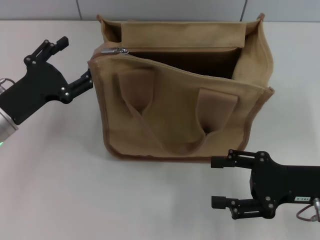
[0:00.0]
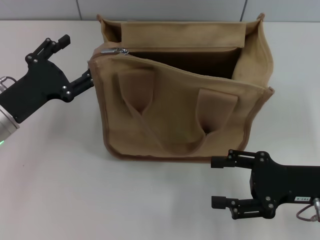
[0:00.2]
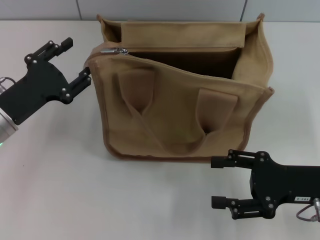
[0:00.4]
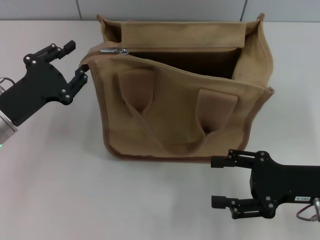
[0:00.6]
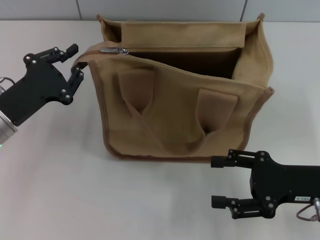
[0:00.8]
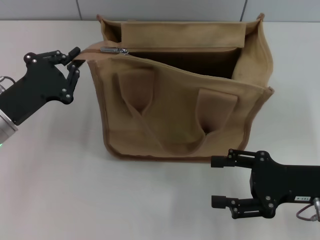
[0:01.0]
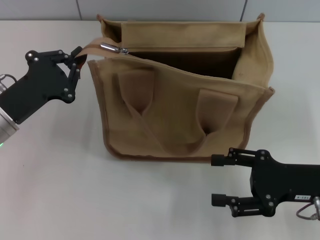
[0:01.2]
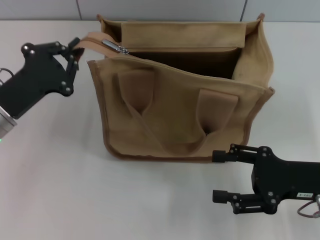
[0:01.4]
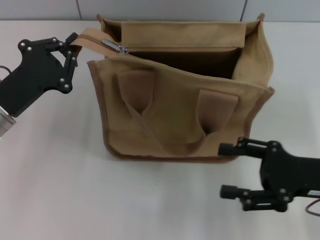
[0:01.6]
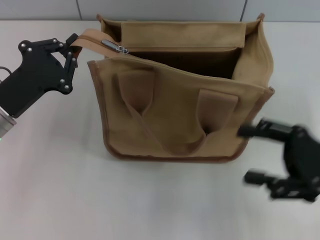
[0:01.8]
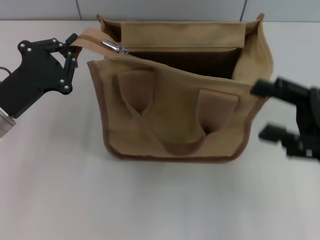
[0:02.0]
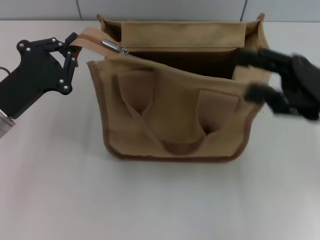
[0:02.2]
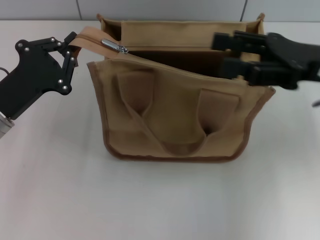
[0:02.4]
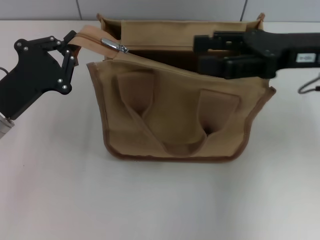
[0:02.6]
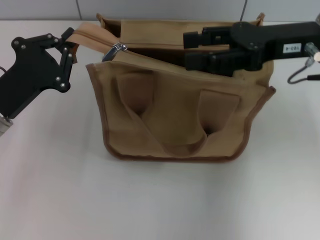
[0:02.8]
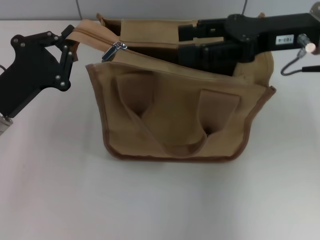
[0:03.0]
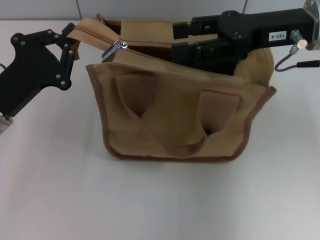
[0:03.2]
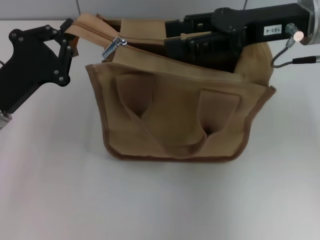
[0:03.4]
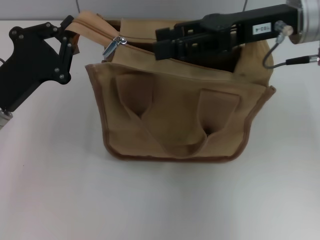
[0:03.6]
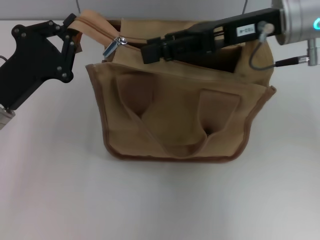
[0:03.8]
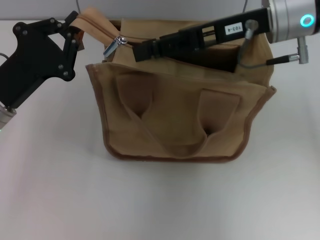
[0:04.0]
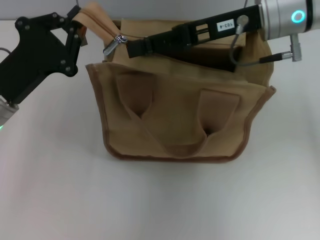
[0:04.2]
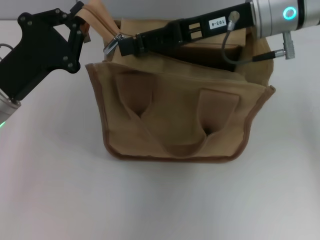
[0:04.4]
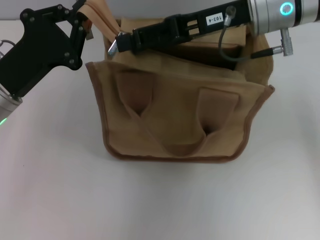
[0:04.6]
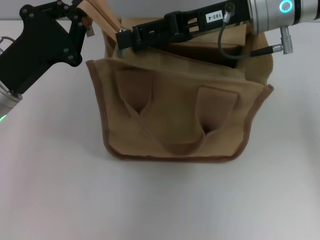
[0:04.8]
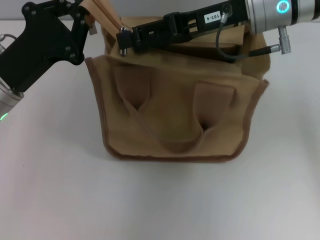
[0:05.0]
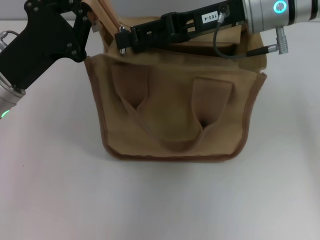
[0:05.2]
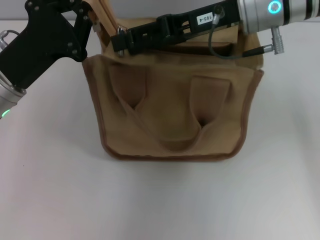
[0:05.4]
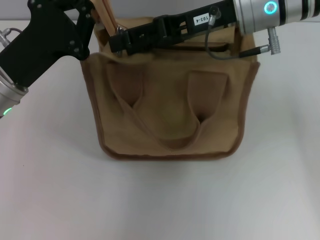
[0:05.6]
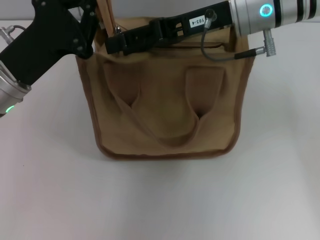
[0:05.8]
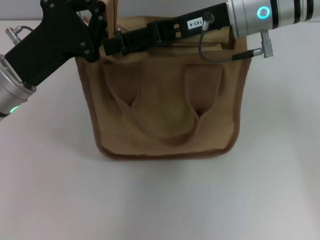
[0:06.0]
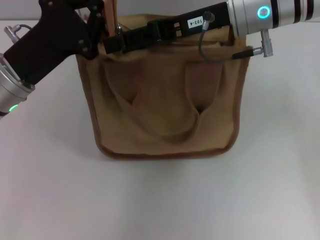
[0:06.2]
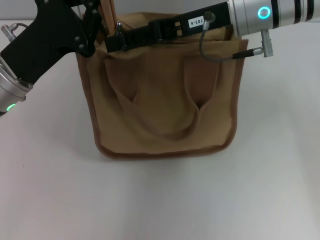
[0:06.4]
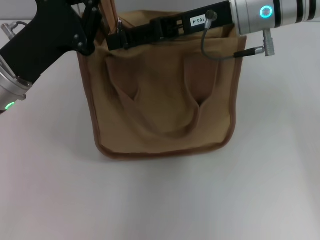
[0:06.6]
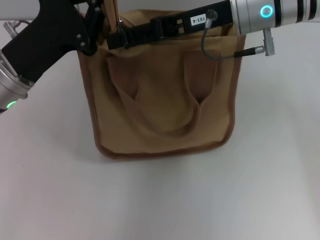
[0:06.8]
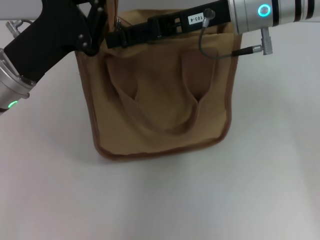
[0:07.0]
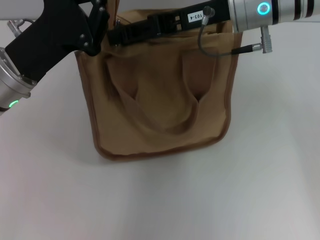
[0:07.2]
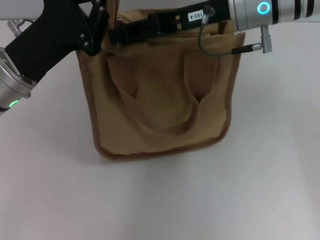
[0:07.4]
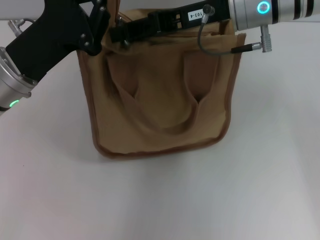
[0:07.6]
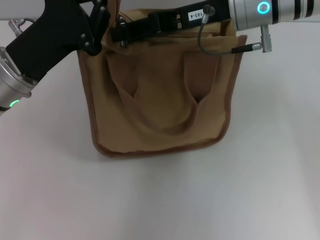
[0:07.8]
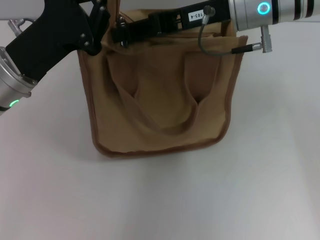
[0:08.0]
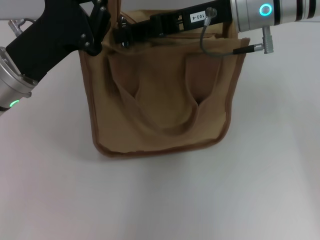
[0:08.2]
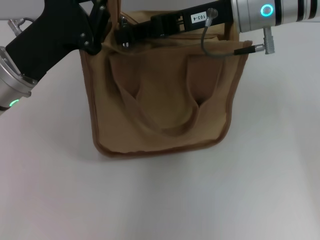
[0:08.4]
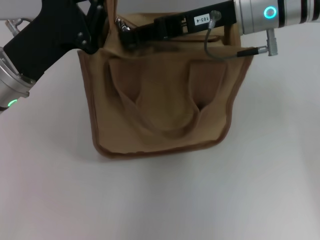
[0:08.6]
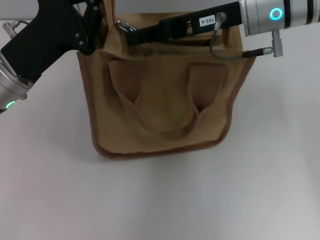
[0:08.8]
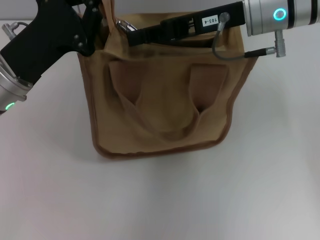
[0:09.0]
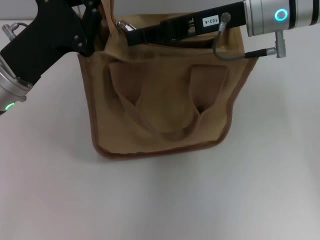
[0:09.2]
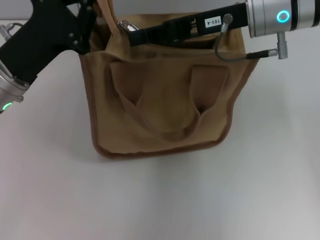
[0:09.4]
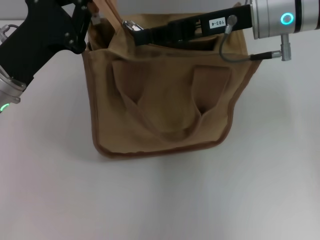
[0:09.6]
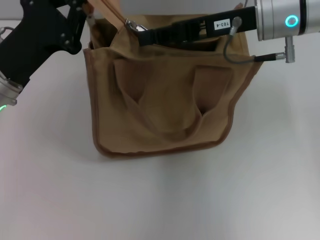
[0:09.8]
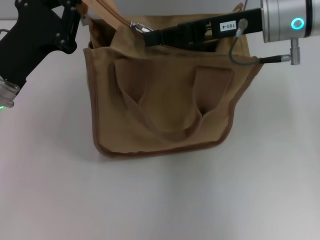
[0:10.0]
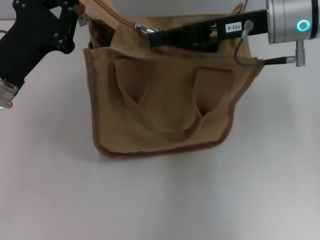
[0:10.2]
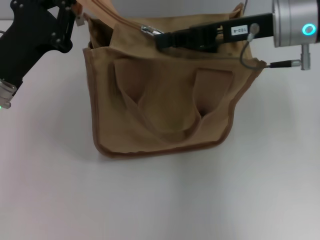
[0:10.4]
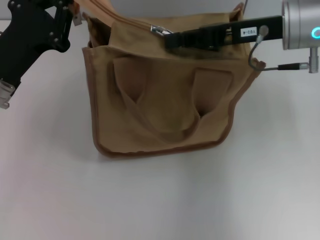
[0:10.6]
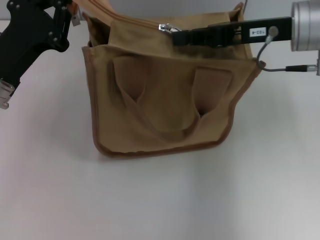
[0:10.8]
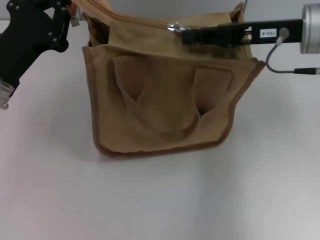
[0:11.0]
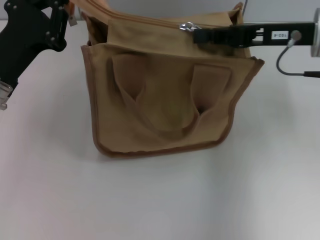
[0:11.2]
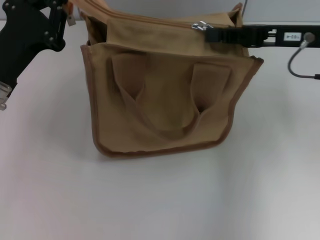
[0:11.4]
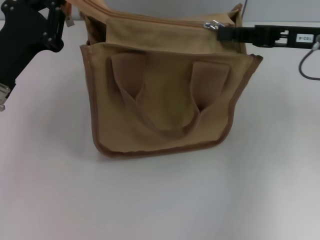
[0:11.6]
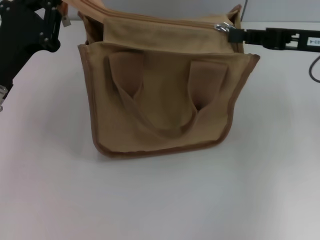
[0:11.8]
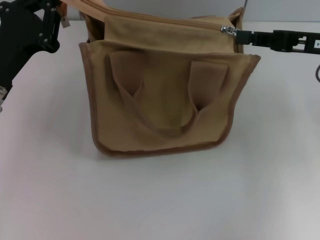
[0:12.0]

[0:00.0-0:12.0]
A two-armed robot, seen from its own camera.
0:00.0 to 0:01.6: The left gripper closes.
0:01.6 to 0:03.0: The right gripper moves forward, upward and to the left, some 20 cm.
0:03.0 to 0:04.4: The right gripper is displaced to the left by some 5 cm.
0:06.0 to 0:07.6: The right gripper closes.
0:07.6 to 0:09.0: The right gripper closes its fingers.
0:09.0 to 0:10.4: There are only small adjustments of the grippers.
0:10.4 to 0:12.0: The right gripper shifts about 10 cm to the right.

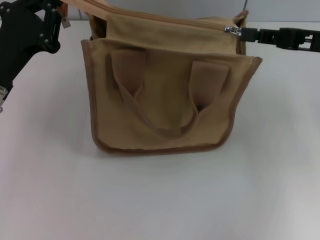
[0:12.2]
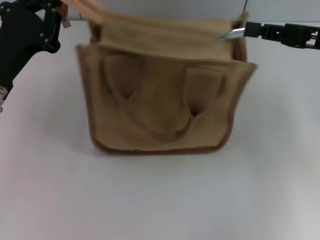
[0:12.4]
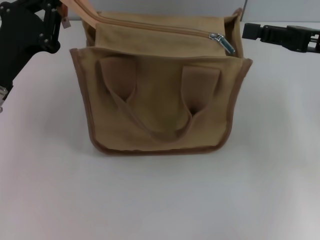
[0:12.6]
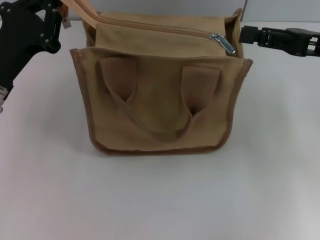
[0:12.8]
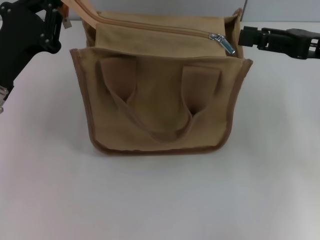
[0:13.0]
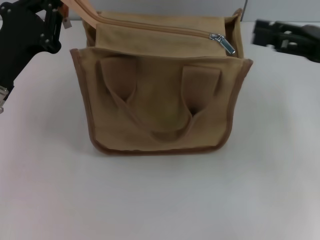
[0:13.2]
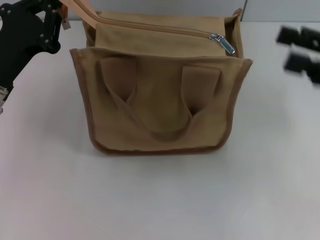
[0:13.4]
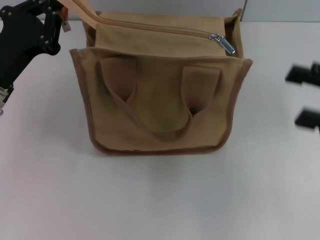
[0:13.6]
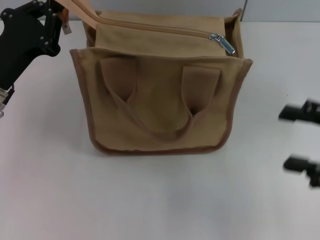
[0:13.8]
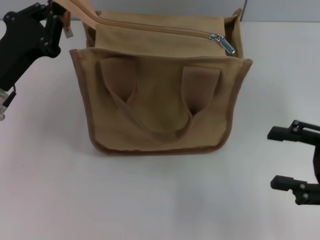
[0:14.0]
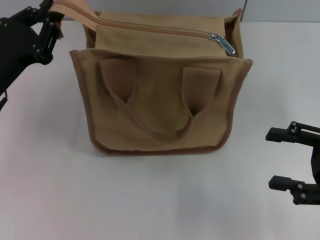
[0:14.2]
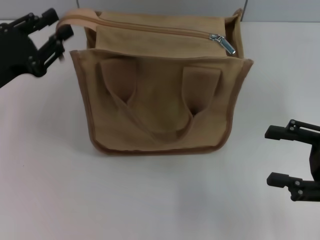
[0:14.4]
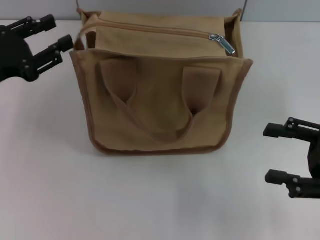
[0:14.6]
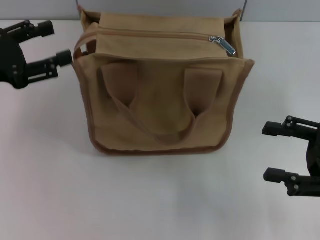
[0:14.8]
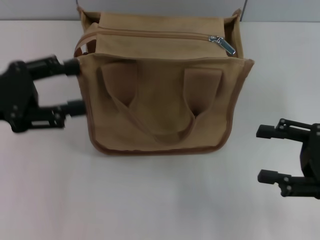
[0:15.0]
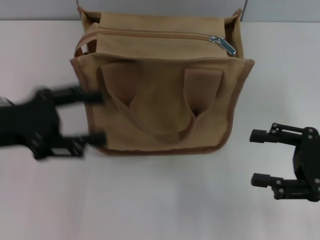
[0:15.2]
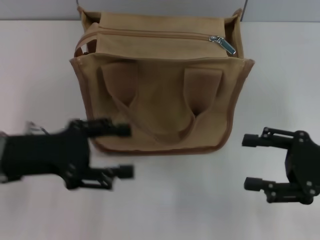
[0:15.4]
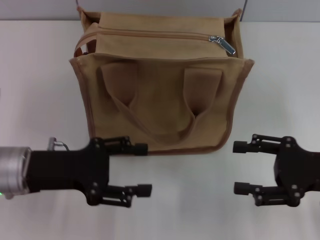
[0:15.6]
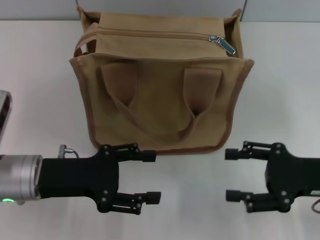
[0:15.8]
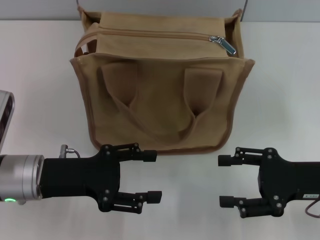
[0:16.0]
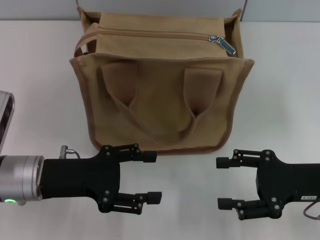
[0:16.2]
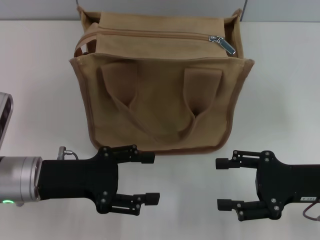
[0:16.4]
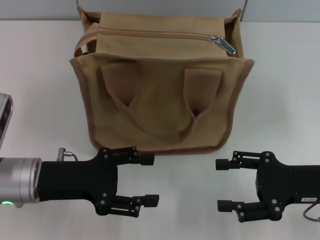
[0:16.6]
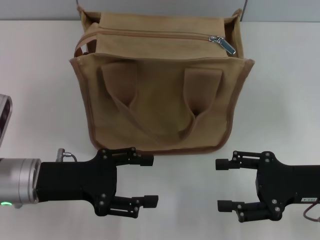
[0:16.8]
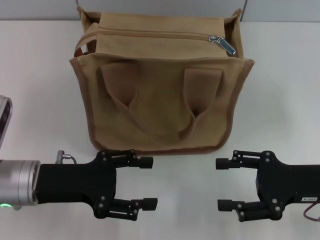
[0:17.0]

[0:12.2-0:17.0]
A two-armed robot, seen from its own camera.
Step, 0:12.6 to 0:14.6: Grab the zipper with your left hand.
0:12.2 to 0:13.8: The right gripper shifts about 15 cm backward and downward, and opens up.
0:13.8 to 0:15.4: The left gripper opens its fingers.
0:15.4 to 0:17.0: The left gripper moves roughly 5 cm.

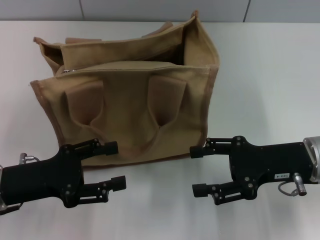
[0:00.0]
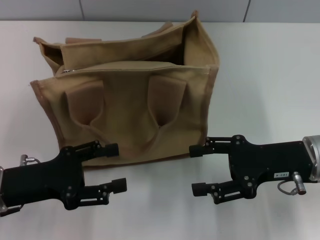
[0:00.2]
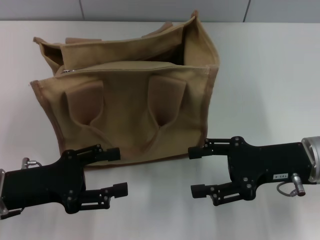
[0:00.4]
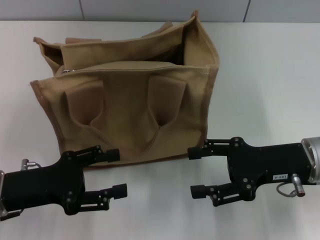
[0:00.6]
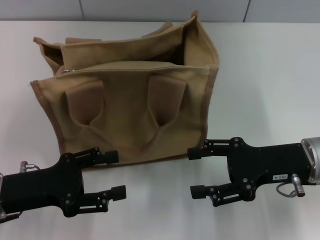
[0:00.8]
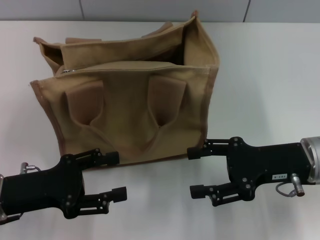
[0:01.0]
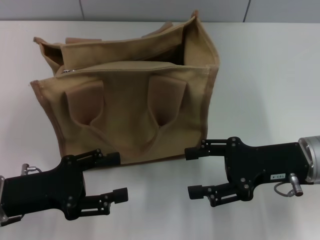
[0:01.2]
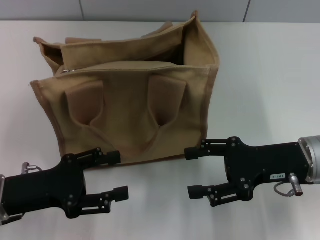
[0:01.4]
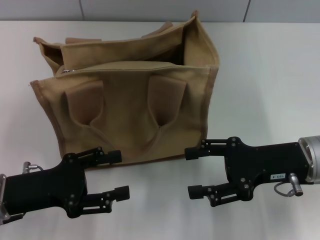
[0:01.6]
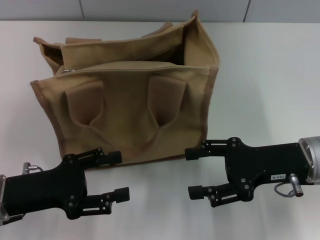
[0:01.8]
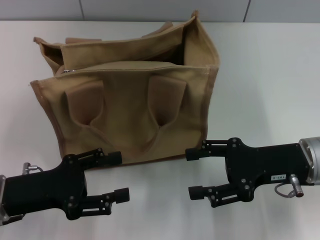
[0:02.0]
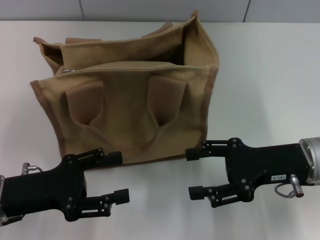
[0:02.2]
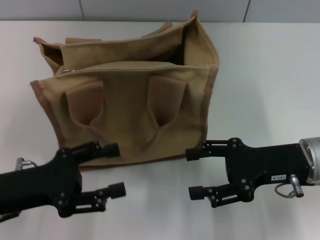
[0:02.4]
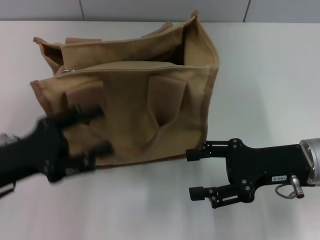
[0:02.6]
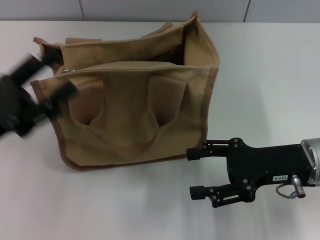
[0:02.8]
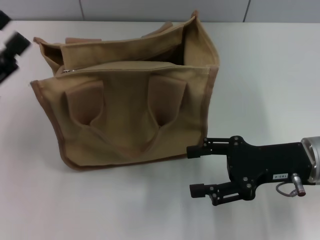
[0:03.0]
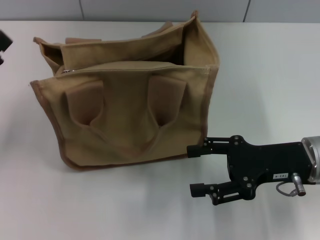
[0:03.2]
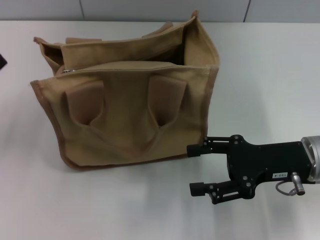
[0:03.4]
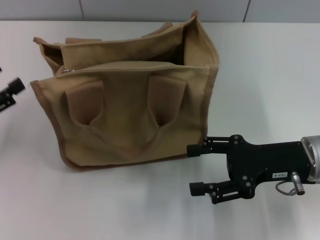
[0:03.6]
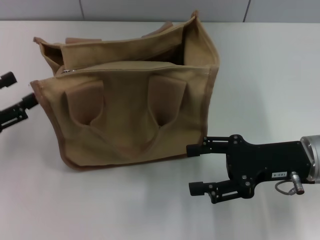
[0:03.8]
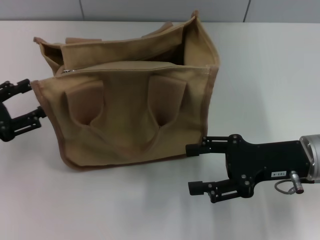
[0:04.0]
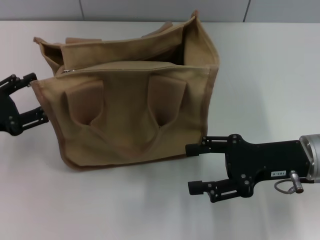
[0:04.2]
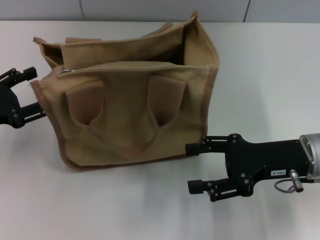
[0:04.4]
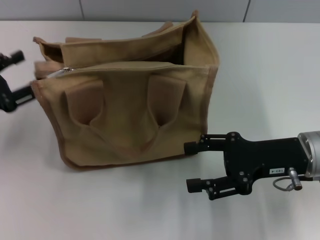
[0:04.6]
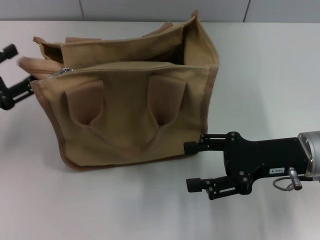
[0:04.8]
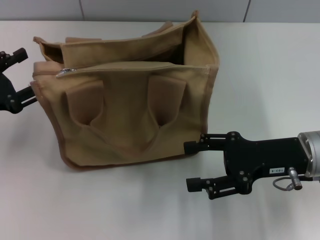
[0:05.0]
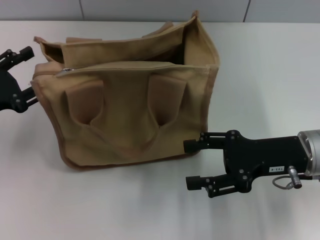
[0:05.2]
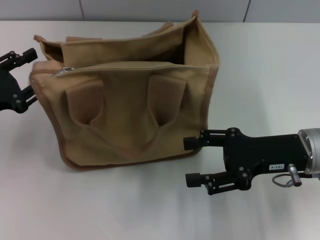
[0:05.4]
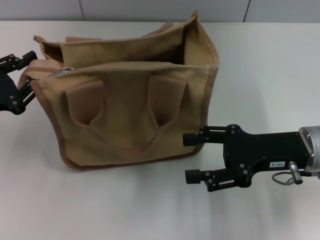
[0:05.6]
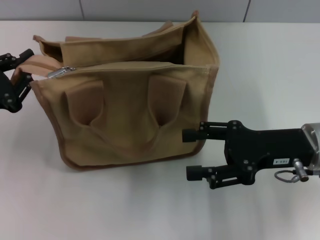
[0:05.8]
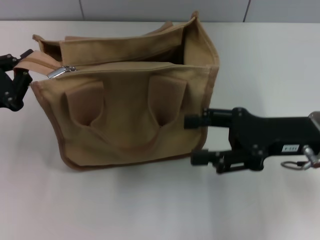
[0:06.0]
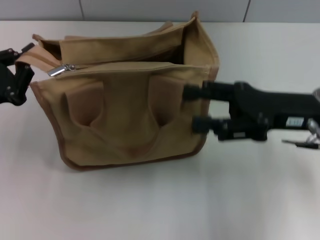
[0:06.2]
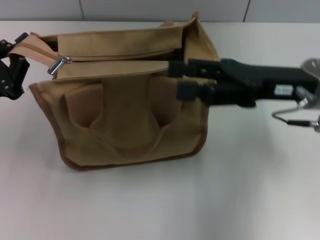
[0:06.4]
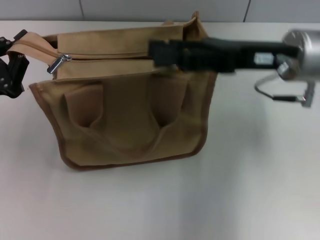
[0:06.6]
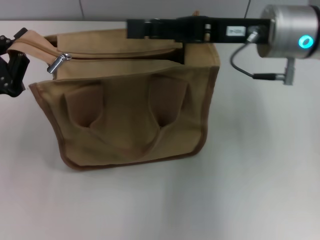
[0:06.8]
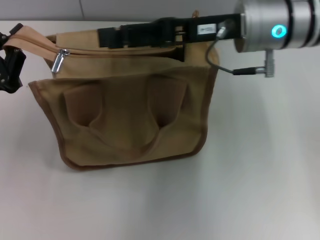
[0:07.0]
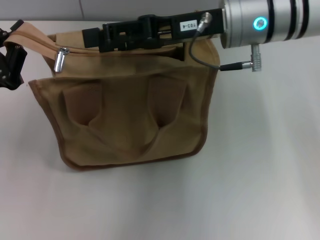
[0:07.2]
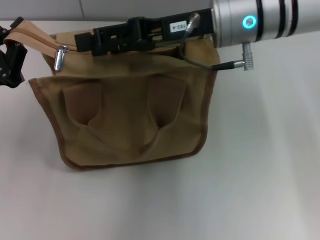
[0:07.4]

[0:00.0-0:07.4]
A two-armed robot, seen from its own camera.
0:00.0 to 0:01.4: Both grippers stay about where they are.
0:01.4 to 0:03.0: The left gripper is displaced upward by approximately 5 cm.
0:04.4 to 0:06.0: The left gripper closes its fingers.
0:06.0 to 0:07.4: The right gripper goes roughly 20 cm to the left, forward and upward.
